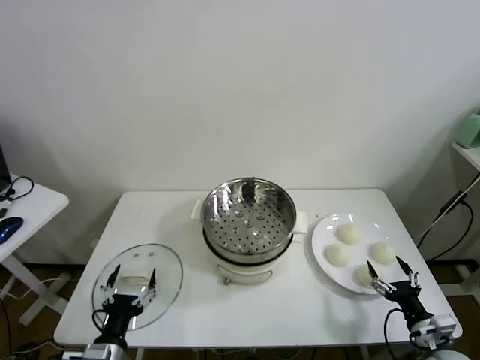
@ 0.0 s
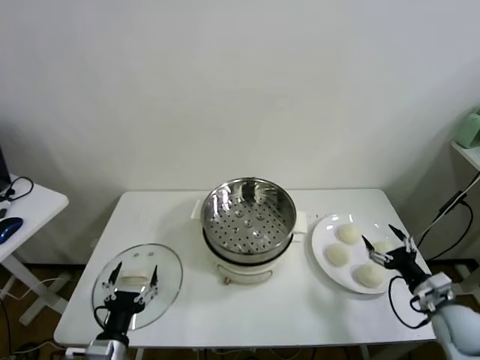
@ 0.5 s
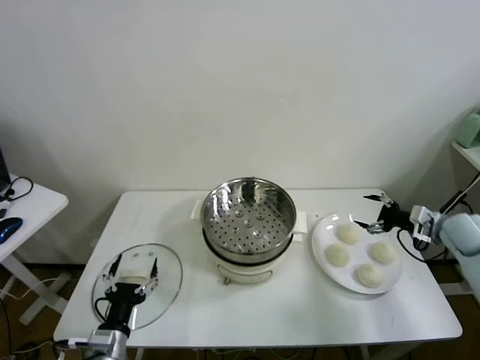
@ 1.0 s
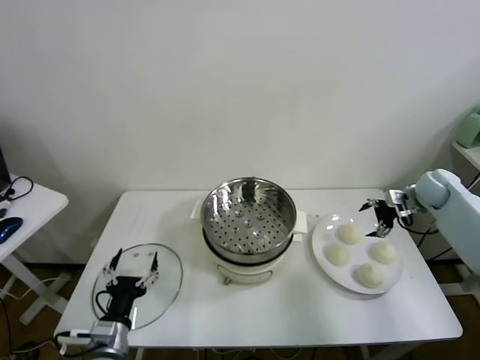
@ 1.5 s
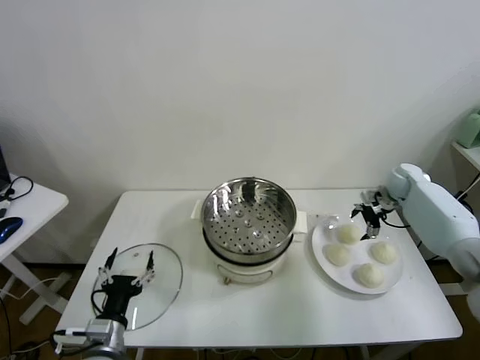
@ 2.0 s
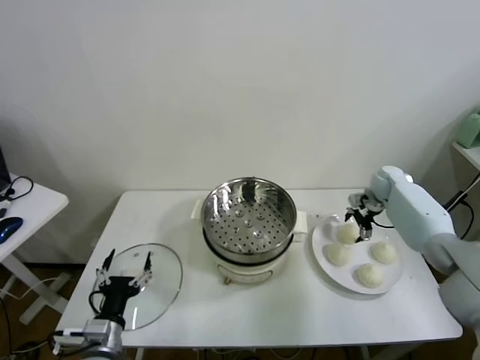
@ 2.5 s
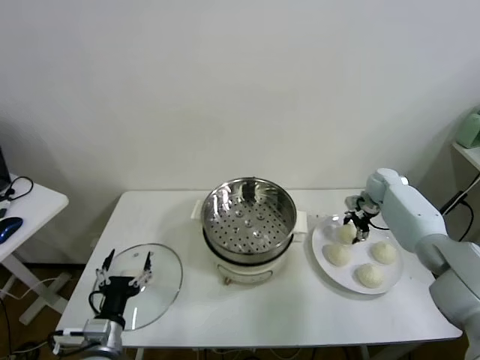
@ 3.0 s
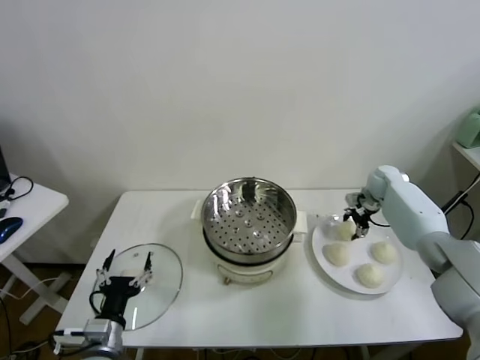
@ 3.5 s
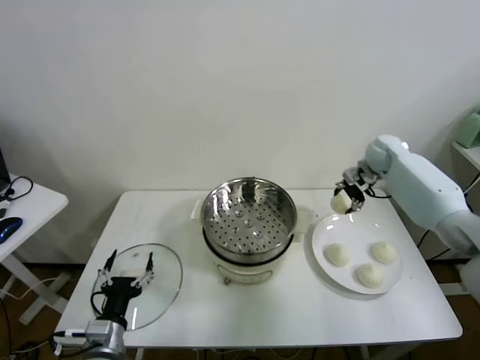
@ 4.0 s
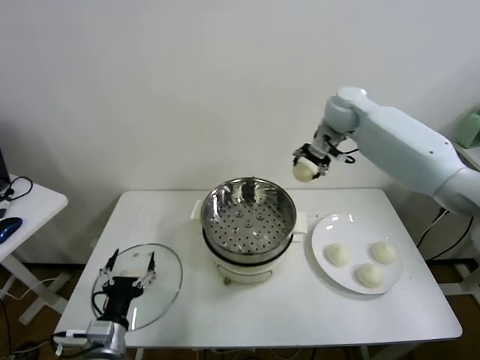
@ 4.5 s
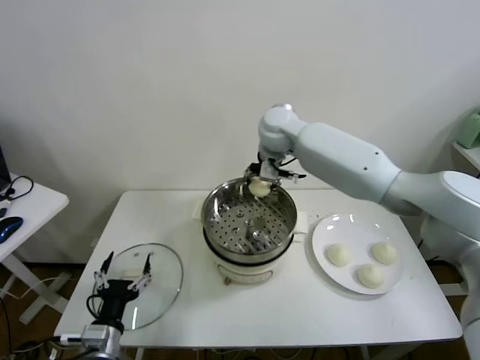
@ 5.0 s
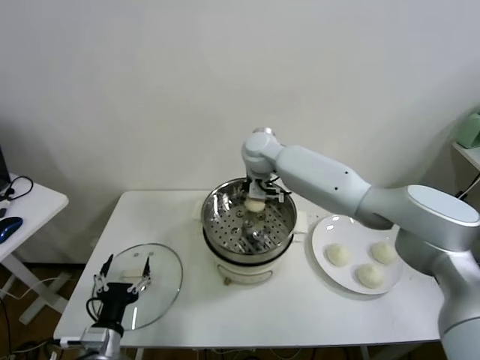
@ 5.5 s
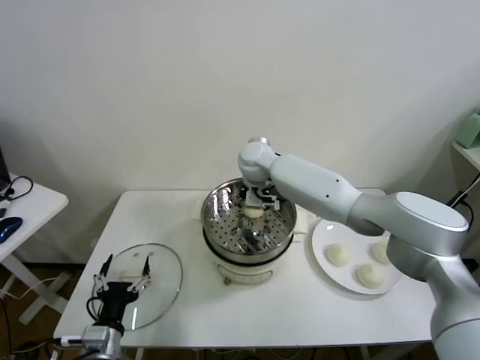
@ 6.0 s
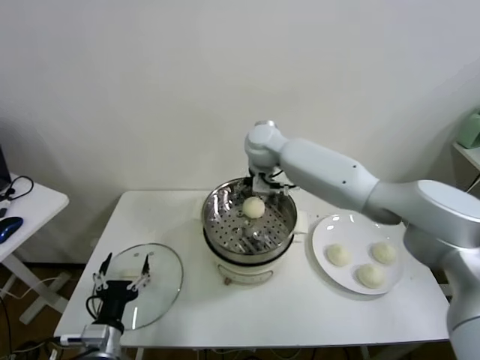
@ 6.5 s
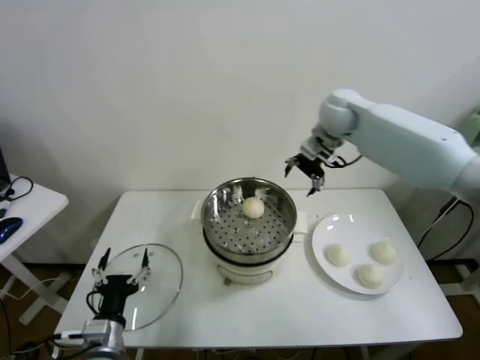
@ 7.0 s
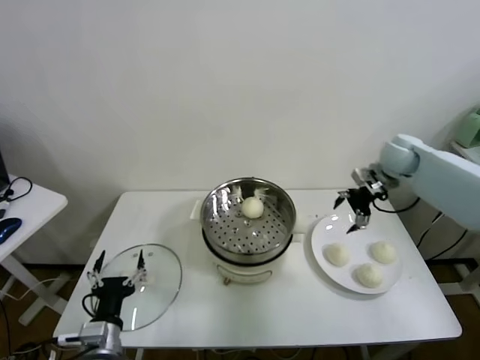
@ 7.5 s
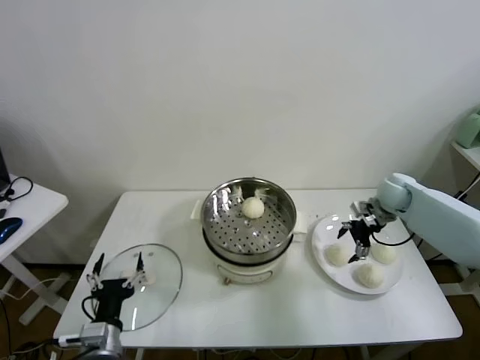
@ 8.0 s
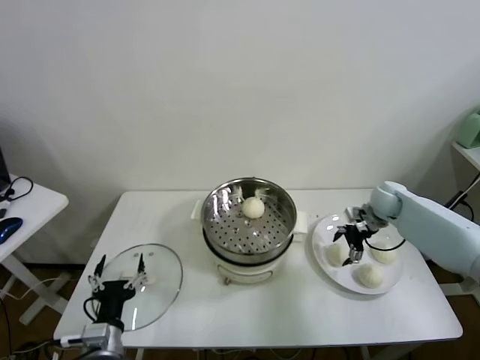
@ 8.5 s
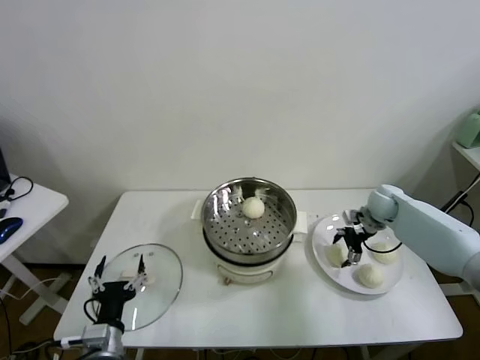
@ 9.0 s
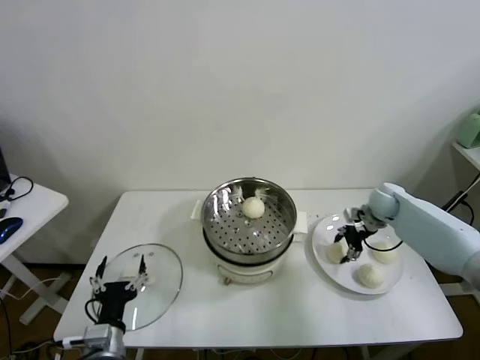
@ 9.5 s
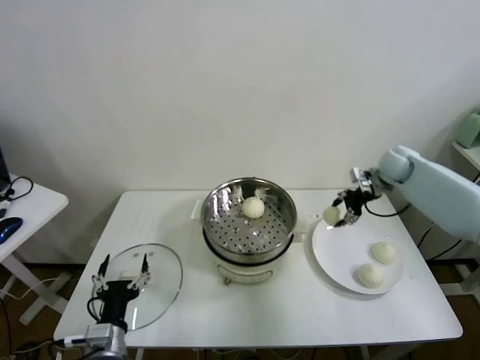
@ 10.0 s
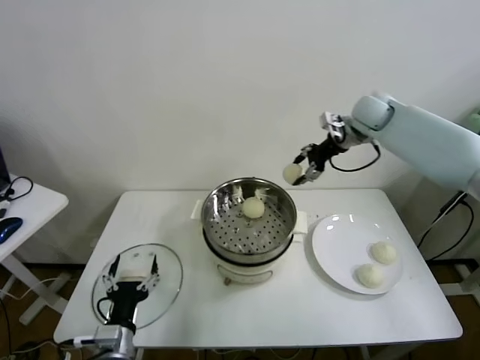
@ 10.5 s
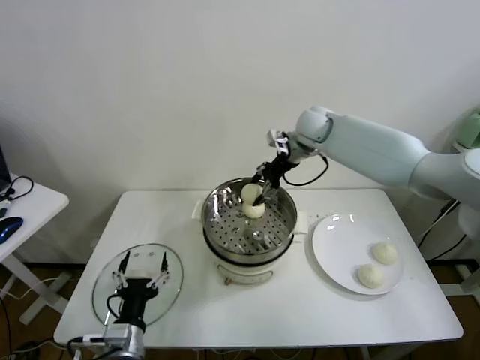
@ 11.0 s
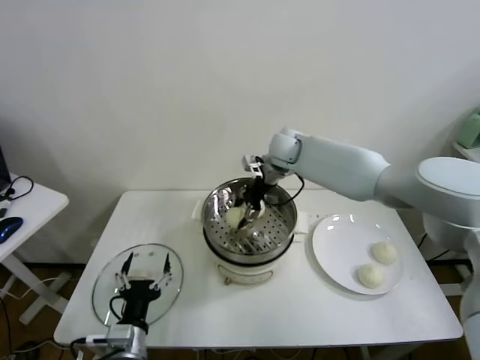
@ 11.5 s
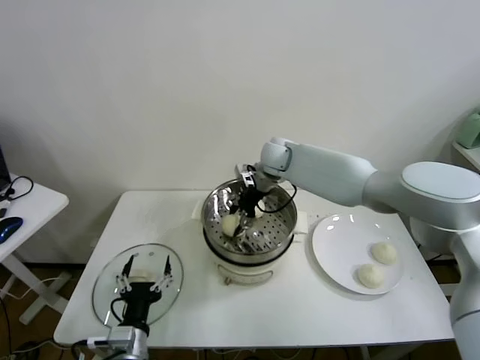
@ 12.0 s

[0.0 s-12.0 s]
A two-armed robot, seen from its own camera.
Task of the whole recording: take steamed baozi put them in steamer.
Step, 0.0 to 3.0 s: Grasp the baozi in the plate with right gripper.
Step, 3.5 to 6.0 s: Place the baozi on the steamer with right gripper.
Step, 6.5 to 9.0 s: Grasp the baozi in the plate with right gripper.
2.0 to 4.0 s: The right gripper heads upward and to the left, covering some 15 cm, and closes its fingers.
4.0 to 6.0 s: The right gripper shifts some 35 cm to the left, and opens up.
6.0 to 8.0 s: The right gripper shifts about 35 cm to the right.
8.0 to 10.0 s: The right gripper is displaced upward by roughly 10 cm, and closes up.
10.0 to 12.0 s: The right gripper goes about 30 cm to the left.

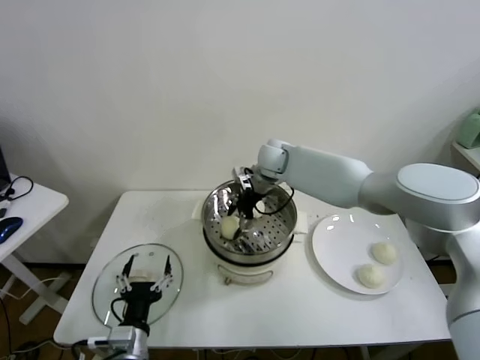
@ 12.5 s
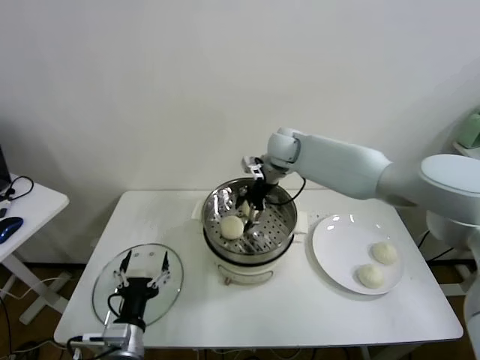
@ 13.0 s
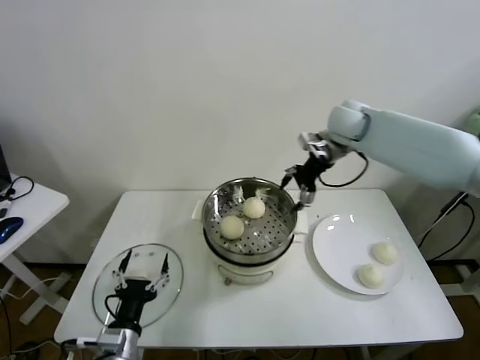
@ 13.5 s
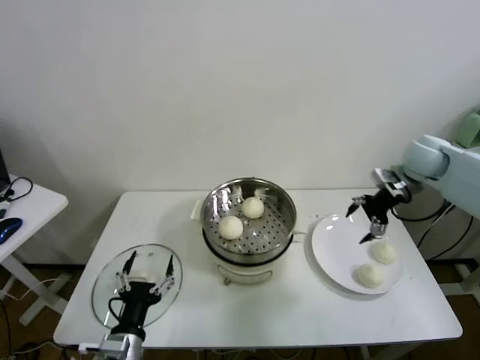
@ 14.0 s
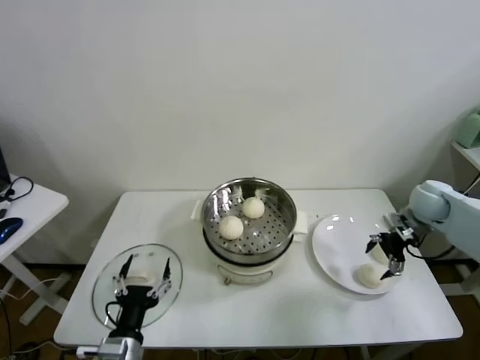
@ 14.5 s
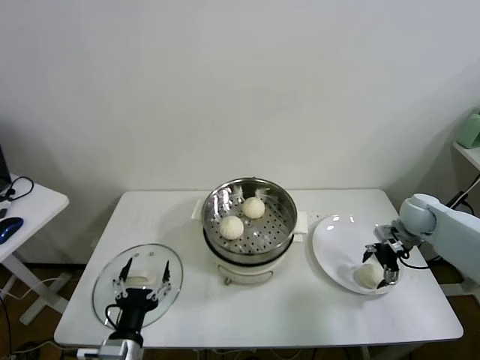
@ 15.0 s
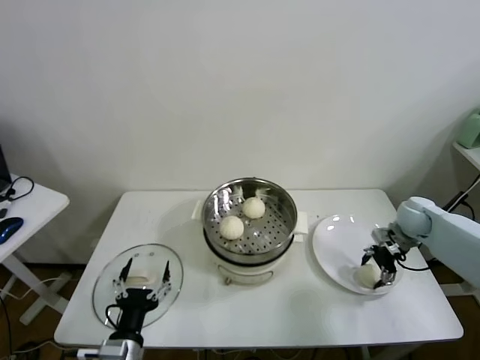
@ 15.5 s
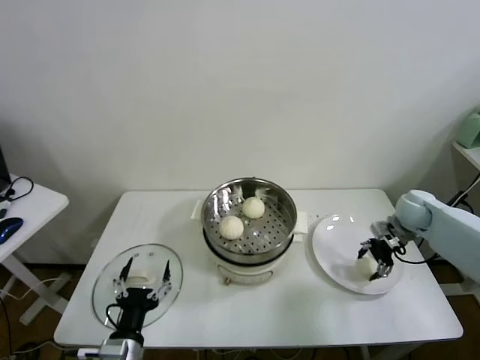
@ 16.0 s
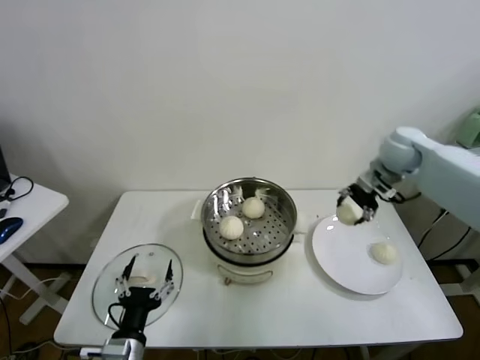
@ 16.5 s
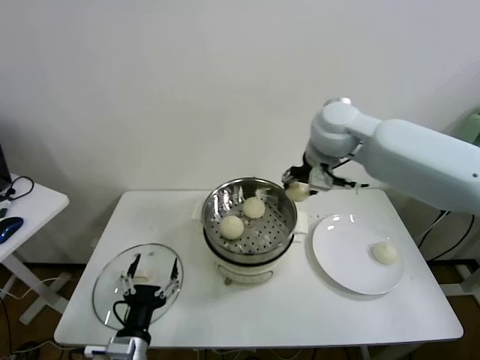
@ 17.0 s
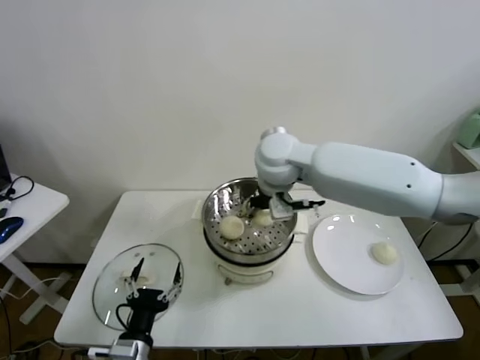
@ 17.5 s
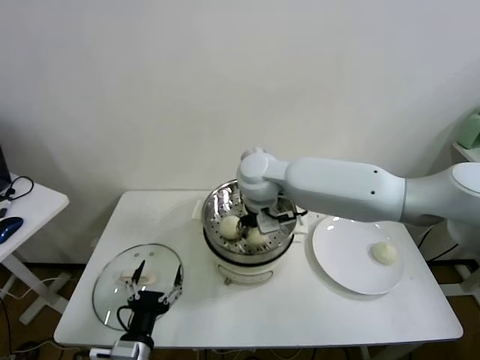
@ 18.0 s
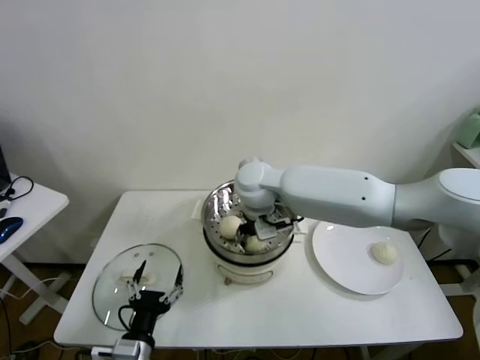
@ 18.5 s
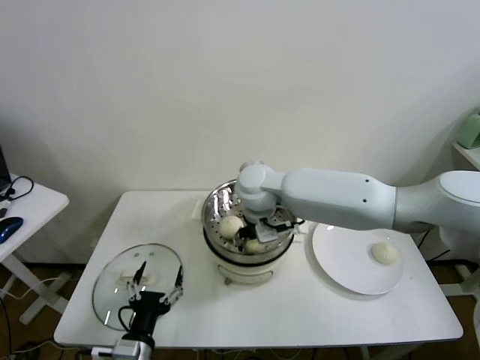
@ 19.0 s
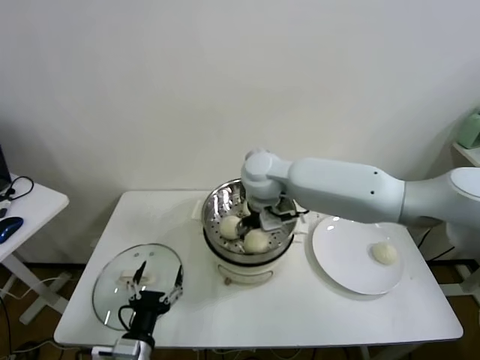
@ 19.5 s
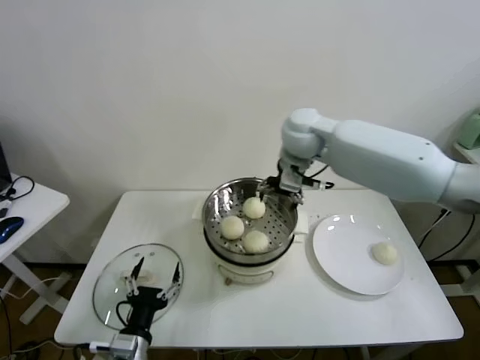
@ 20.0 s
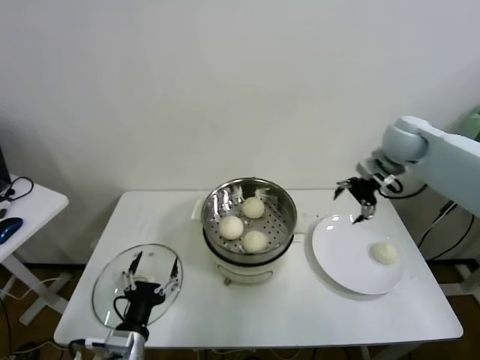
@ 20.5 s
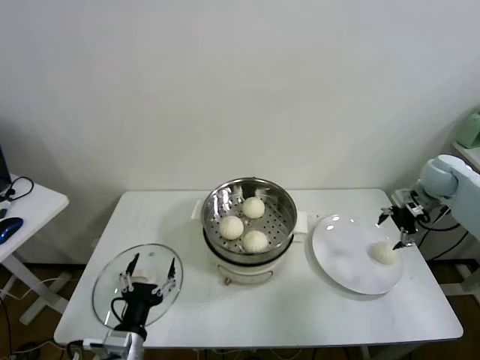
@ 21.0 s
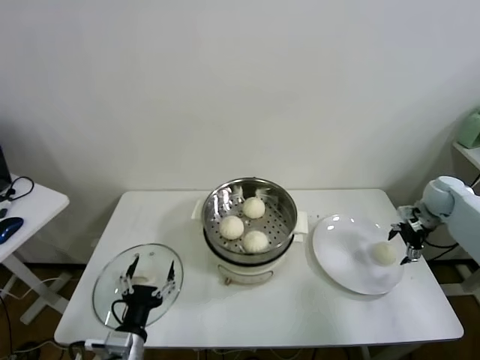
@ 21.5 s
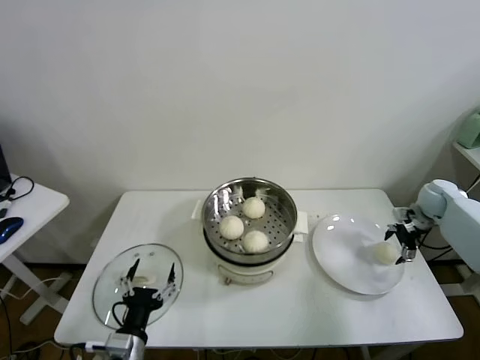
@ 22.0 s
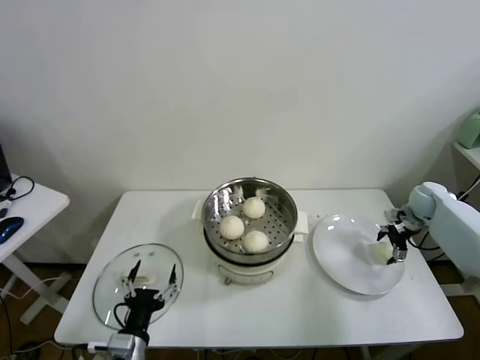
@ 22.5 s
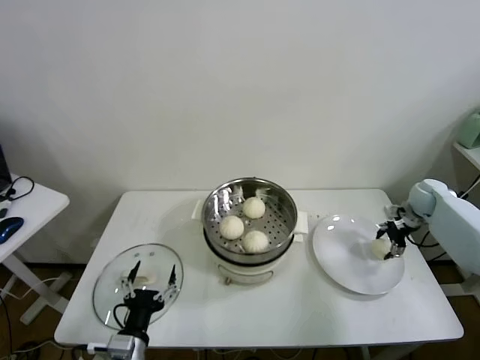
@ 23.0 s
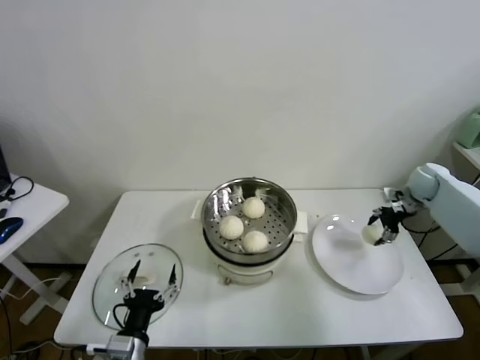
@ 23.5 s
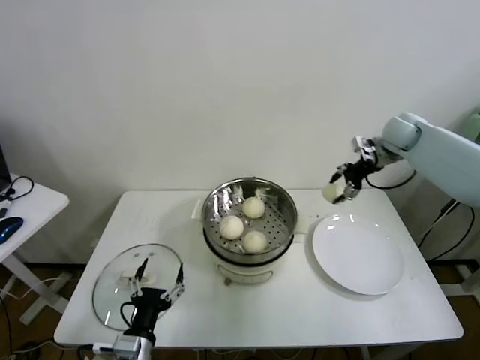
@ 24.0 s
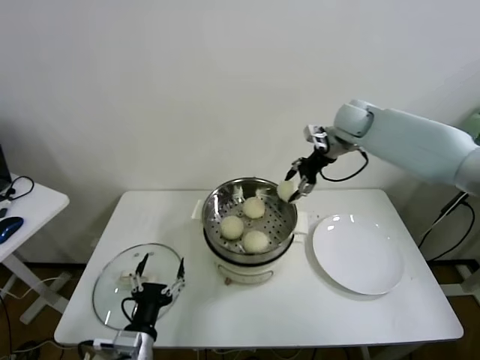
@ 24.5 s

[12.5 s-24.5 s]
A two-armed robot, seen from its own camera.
Task of the whole recording: take steamed baozi put them in steamer.
Step, 13.0 to 15.5 s: Grasp the baozi in the plate with right gripper.
Step, 16.0 to 19.5 s: Place the baozi on the steamer with right gripper.
Step, 20.0 to 22.5 s: Grasp the baozi in the plate with right gripper.
12.5 to 14.5 s: The right gripper travels to the right by about 35 cm.
14.5 to 16.5 s: The right gripper heads upward, to the left and forward, covering approximately 20 cm, and closes.
16.5 to 18.5 s: The right gripper is displaced to the left by some 30 cm.
18.5 to 20.5 s: The right gripper is displaced to the right by approximately 35 cm, and opens its fingers.
20.5 to 22.5 s: The right gripper shifts roughly 25 cm downward and to the right.
22.5 to 24.5 s: The right gripper travels to the left and upward by some 30 cm, and closes.

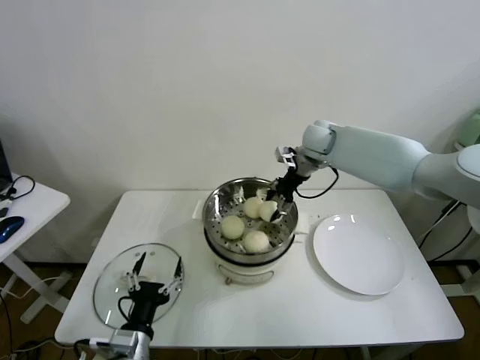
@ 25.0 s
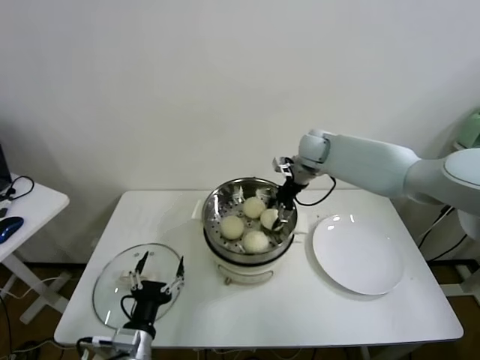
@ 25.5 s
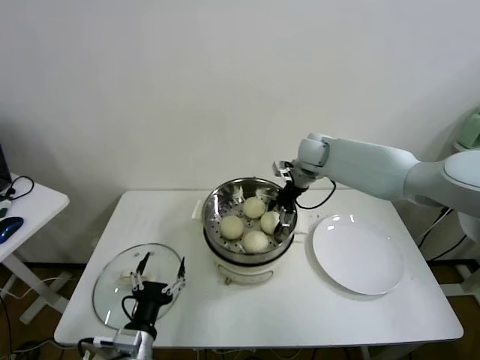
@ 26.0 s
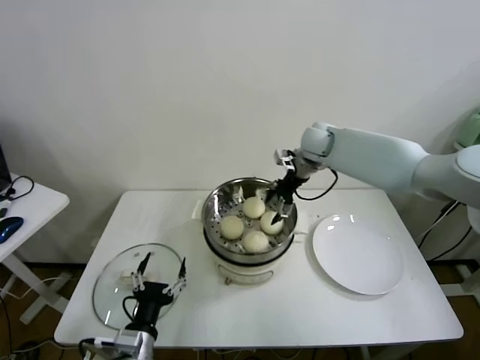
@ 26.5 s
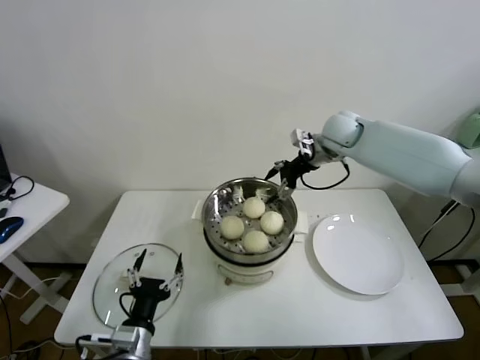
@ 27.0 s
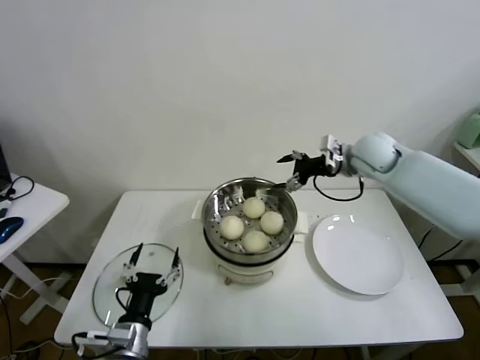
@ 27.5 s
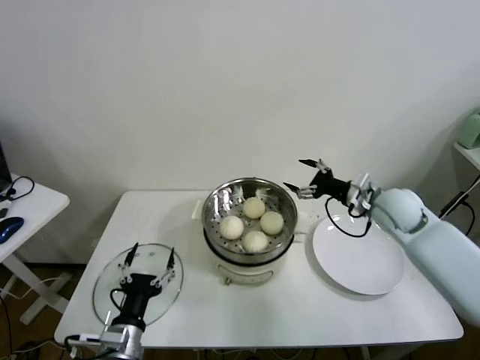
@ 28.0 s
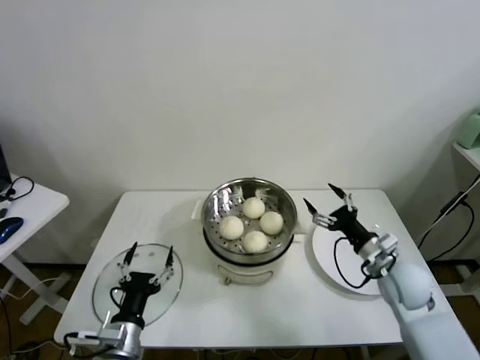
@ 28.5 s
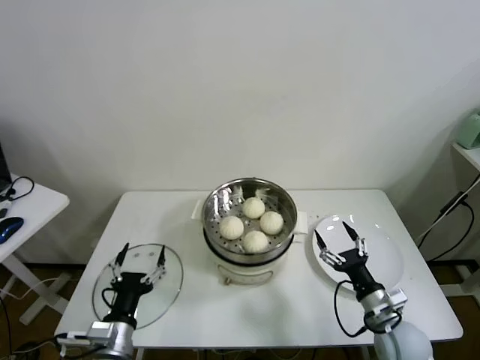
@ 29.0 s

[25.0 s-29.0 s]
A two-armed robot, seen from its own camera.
Task of the whole recording: take steamed baozi put them in steamer.
25.0 to 27.0 s: The right gripper opens.
27.0 to 29.0 s: The right gripper is displaced backward and downward by about 40 cm.
